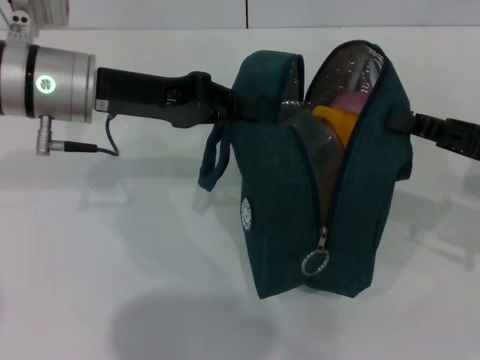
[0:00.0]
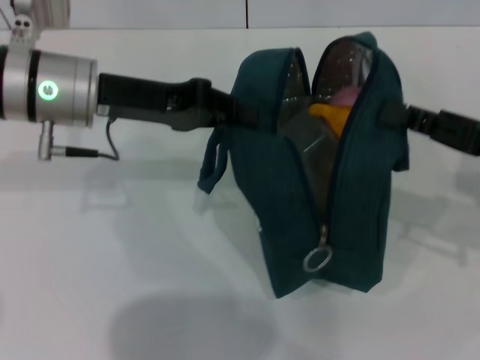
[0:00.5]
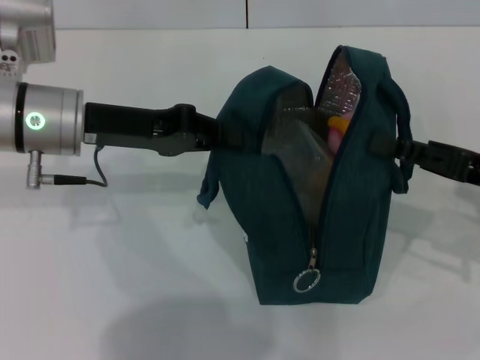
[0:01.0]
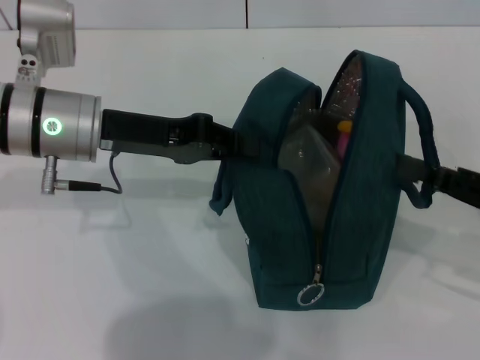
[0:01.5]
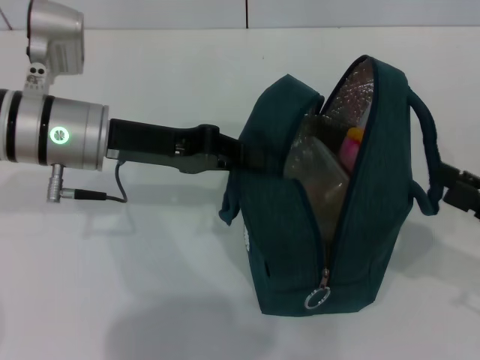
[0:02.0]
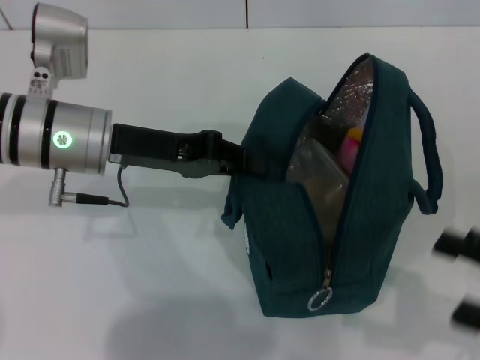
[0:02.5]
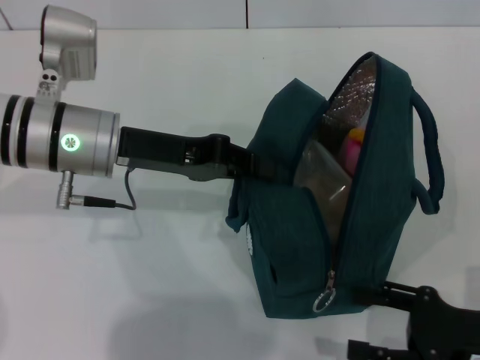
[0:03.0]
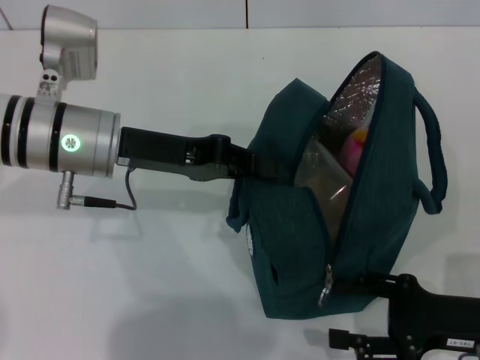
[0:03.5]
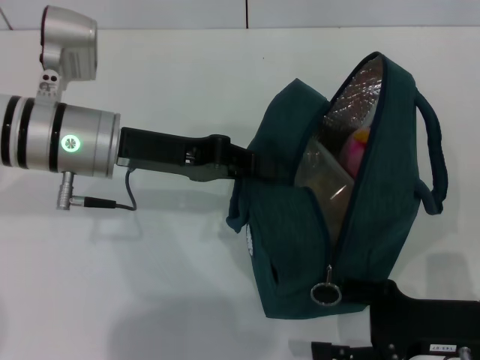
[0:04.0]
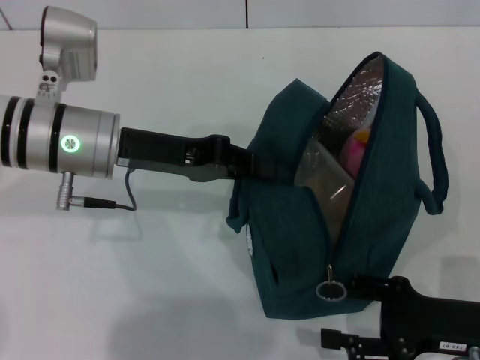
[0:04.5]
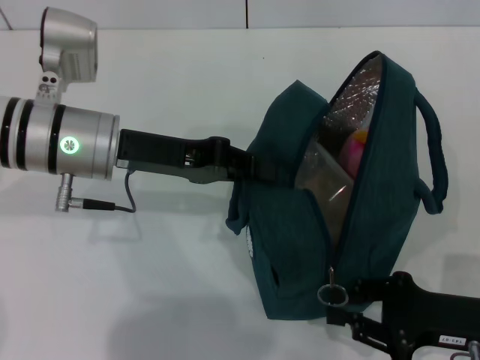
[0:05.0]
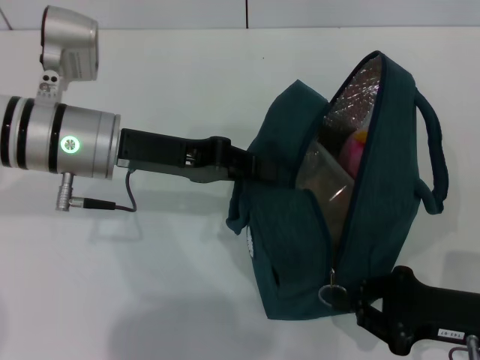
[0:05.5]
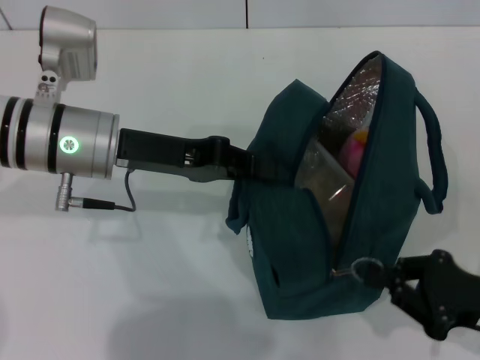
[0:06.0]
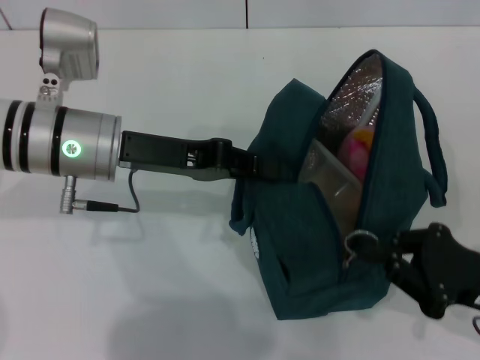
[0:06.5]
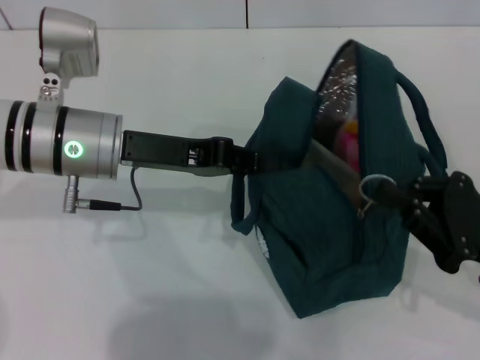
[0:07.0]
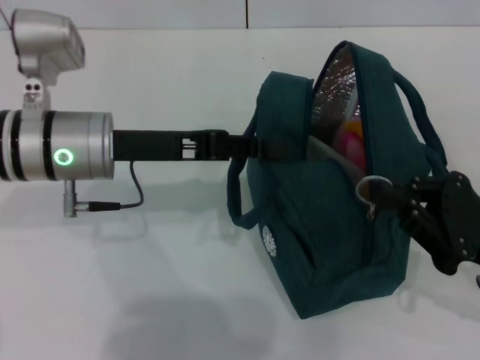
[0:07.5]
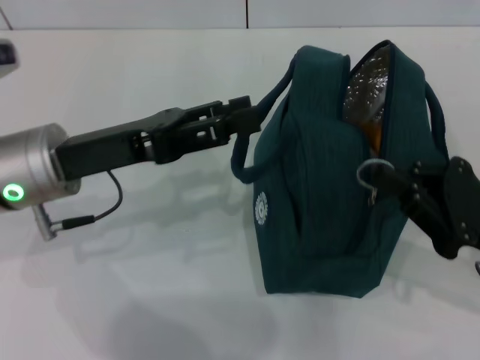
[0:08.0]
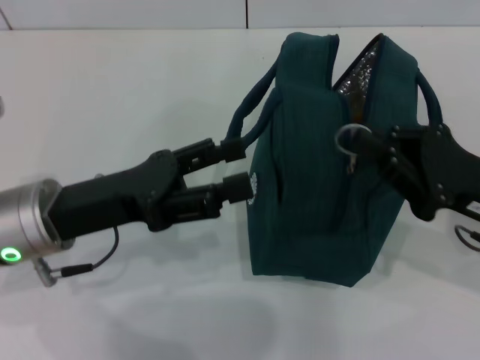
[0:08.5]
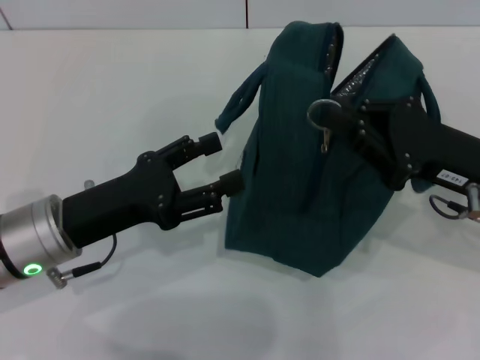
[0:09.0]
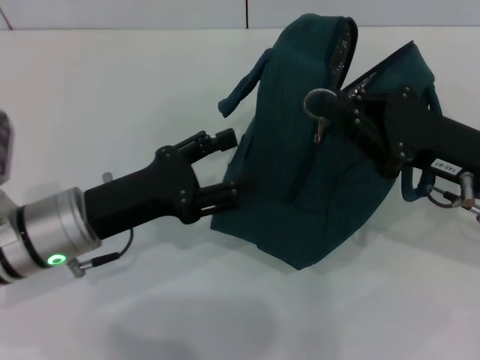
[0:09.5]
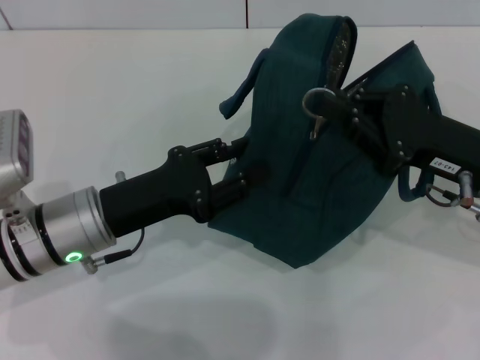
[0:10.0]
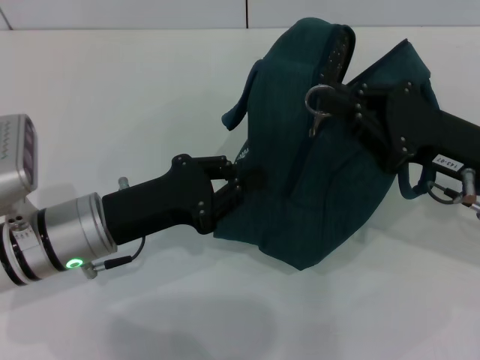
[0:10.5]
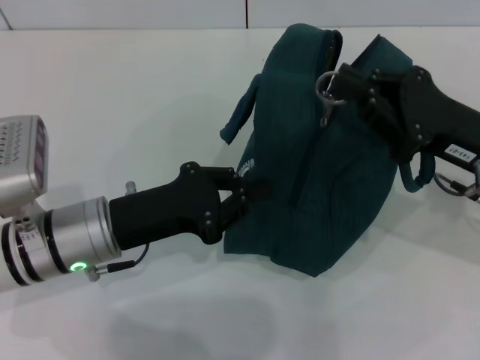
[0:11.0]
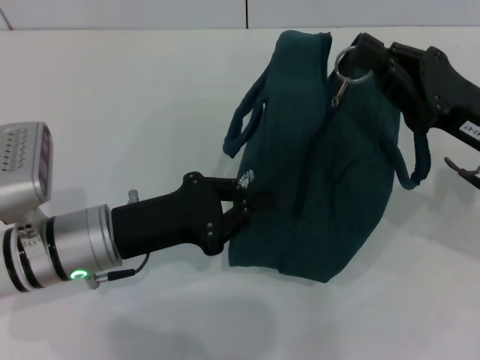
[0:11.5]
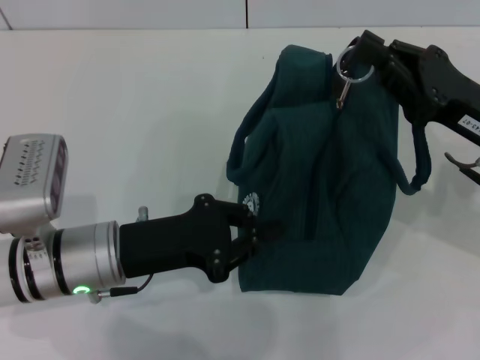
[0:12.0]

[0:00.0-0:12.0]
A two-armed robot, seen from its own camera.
Step, 0:00.0 to 0:02.0: Hold the lunch bag with your right hand.
0:00.0 to 0:02.0: The right gripper is displaced backward by roughly 5 cm, and opens its fingers.
0:02.0 to 0:04.0: The right gripper moves to the left and downward, some 10 cm.
0:04.0 to 0:06.0: The right gripper closes its fingers.
0:06.0 to 0:08.0: The left gripper ends up some 5 cm from where it was, and opens; the right gripper ends up approximately 5 cm from where it was.
0:08.0 to 0:10.0: The right gripper travels forward by about 5 cm; the left gripper goes approximately 5 cm downward.
0:10.0 to 0:12.0: The left gripper closes.

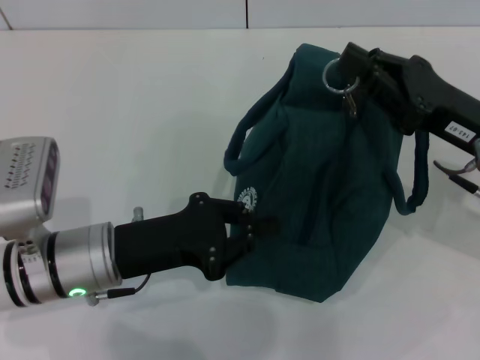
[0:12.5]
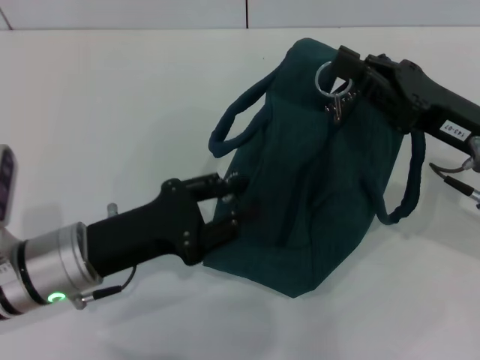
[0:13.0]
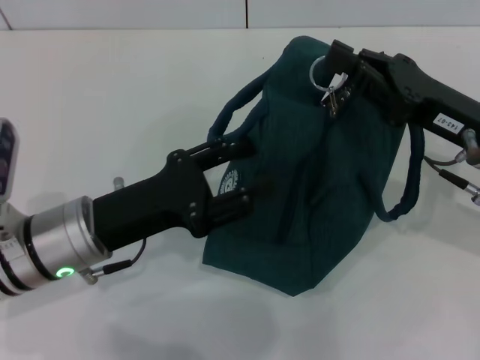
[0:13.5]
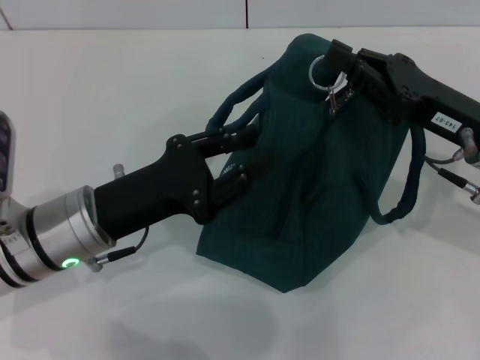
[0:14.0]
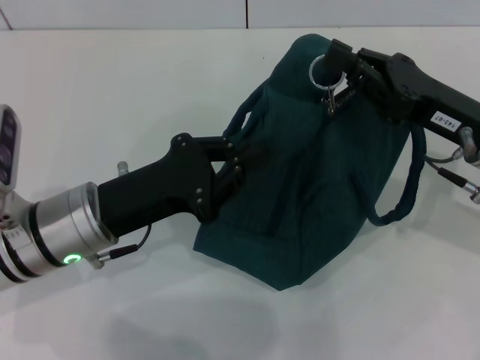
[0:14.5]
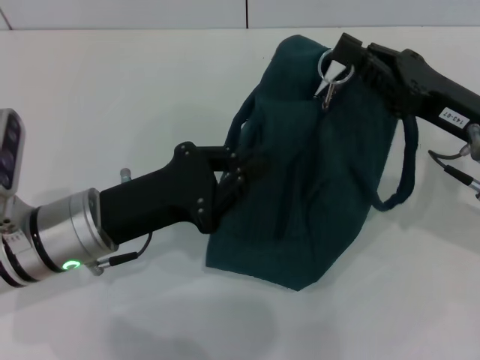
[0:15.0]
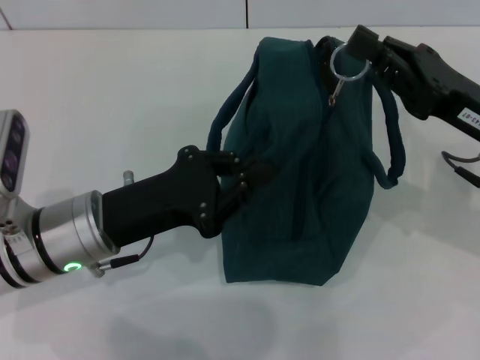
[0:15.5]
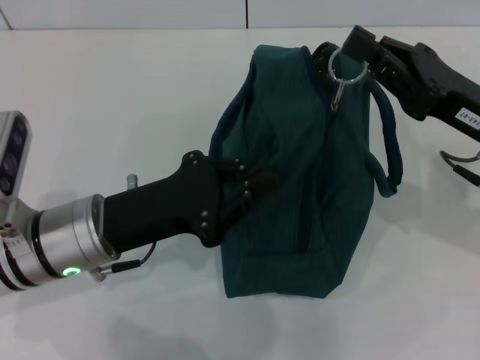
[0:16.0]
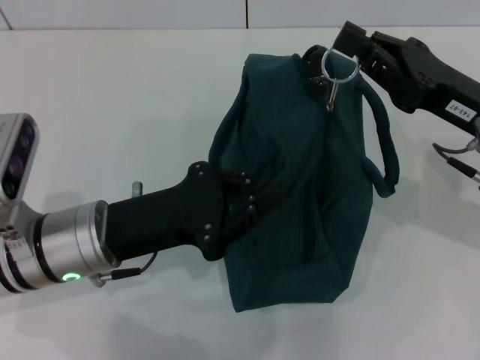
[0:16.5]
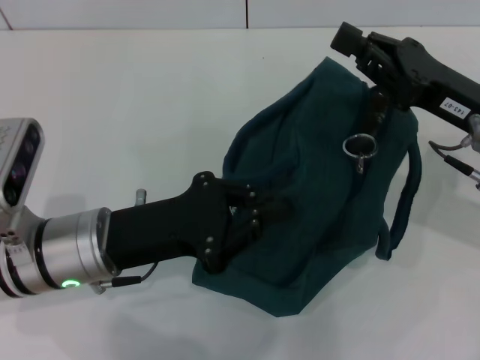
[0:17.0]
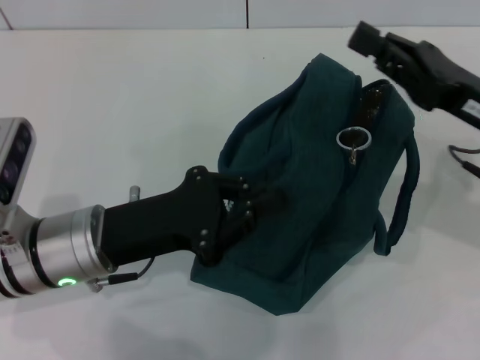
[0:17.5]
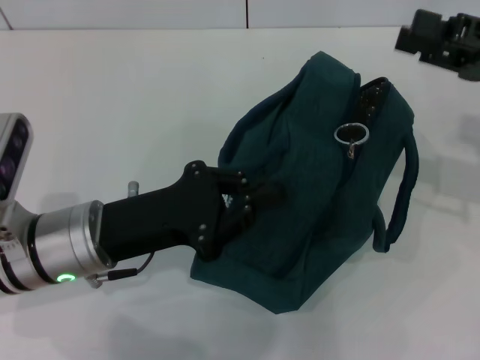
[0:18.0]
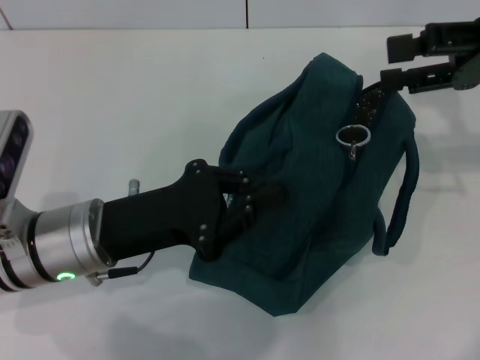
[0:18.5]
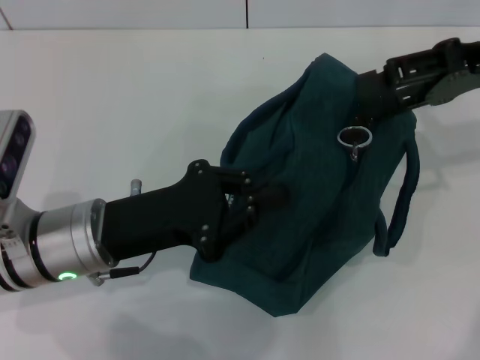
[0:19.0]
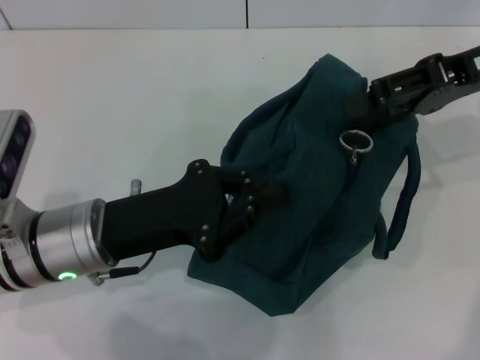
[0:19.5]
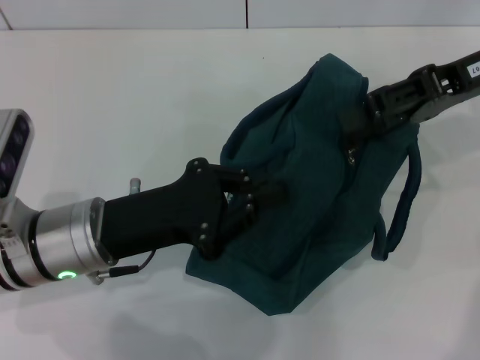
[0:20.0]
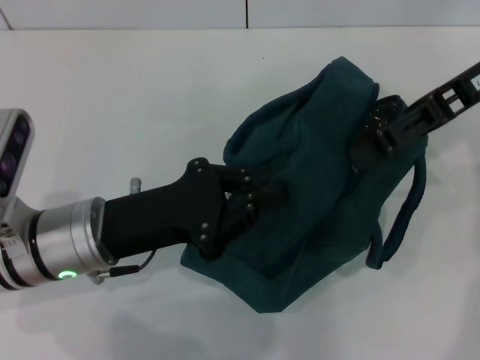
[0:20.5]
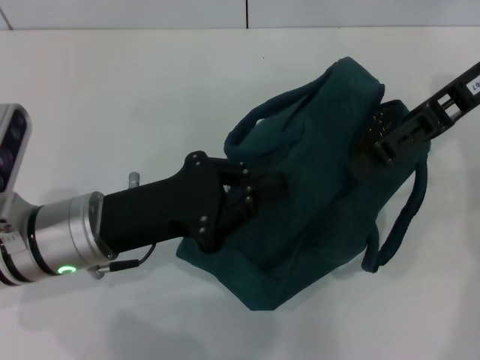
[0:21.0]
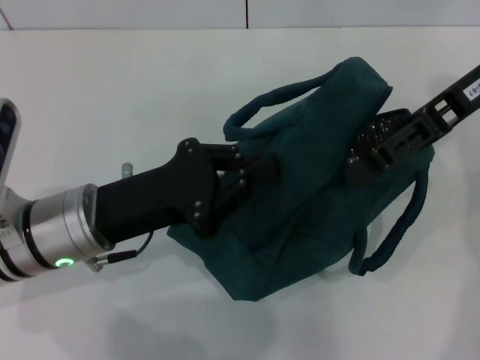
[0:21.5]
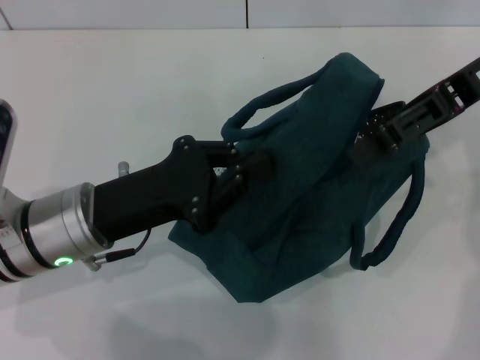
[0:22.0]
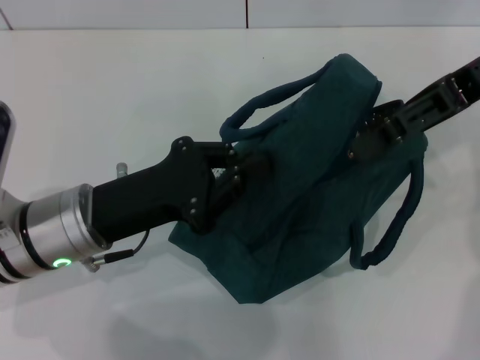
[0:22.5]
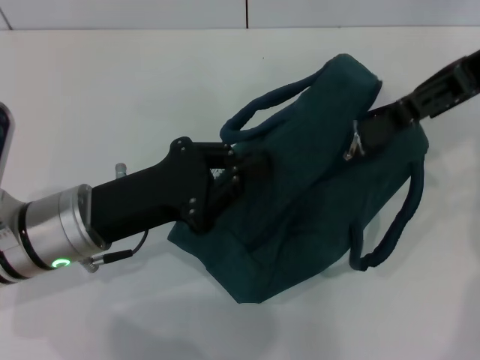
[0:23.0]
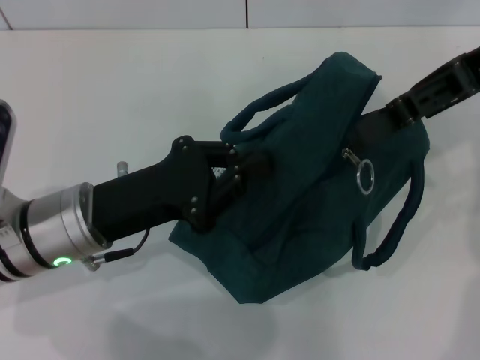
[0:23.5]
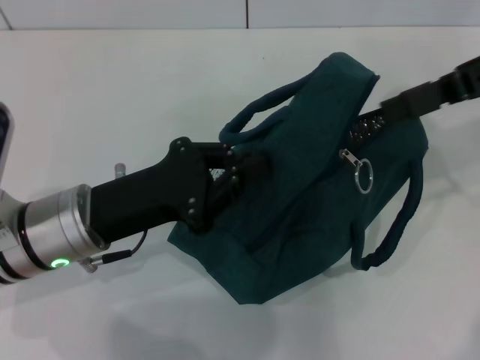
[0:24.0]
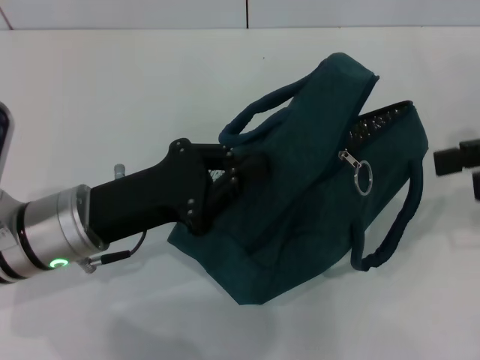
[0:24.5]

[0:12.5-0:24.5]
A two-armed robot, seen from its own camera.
0:12.5 to 0:14.5: The left gripper opens, then closes once more.
0:16.5 to 0:18.5: The right gripper shifts roughly 10 cm upward, to the right and forward, and opens.
0:18.5 to 0:20.5: The right gripper heads to the left, covering roughly 5 cm.
0:20.5 to 0:22.5: The grippers stay close to where they were, moving slightly.
0:22.5 to 0:24.5: The right gripper travels to the right and backward by roughly 10 cm.

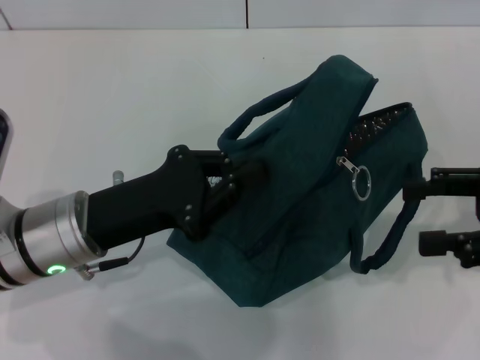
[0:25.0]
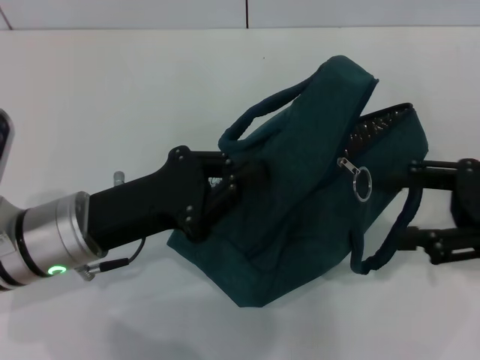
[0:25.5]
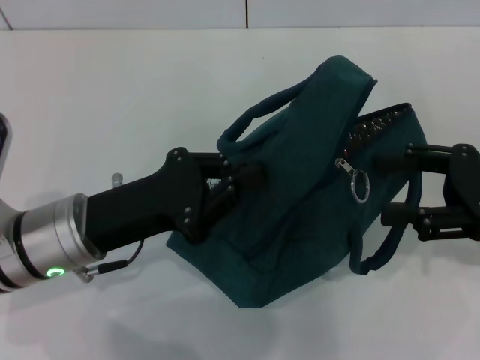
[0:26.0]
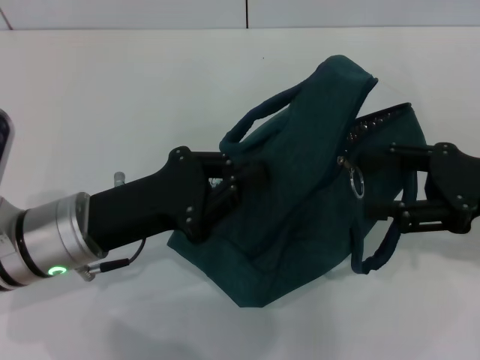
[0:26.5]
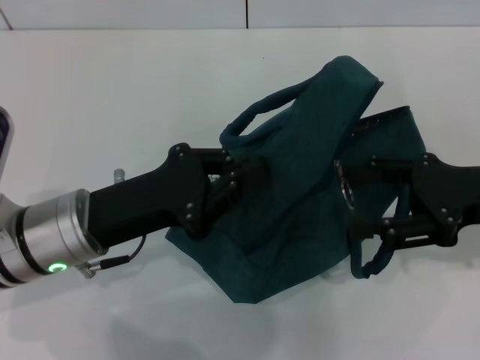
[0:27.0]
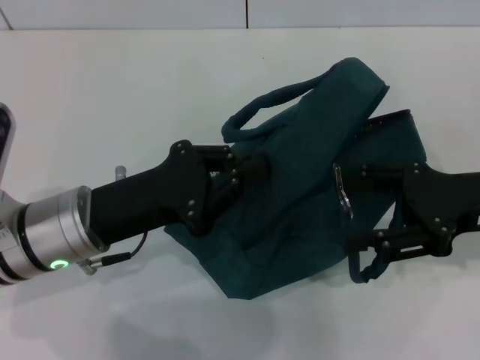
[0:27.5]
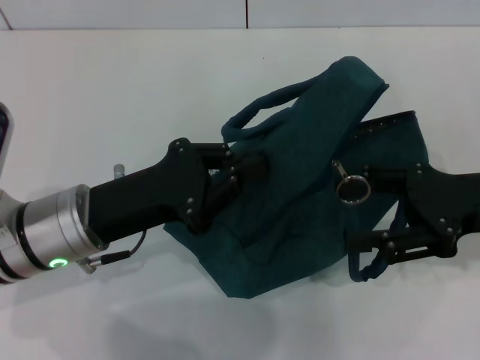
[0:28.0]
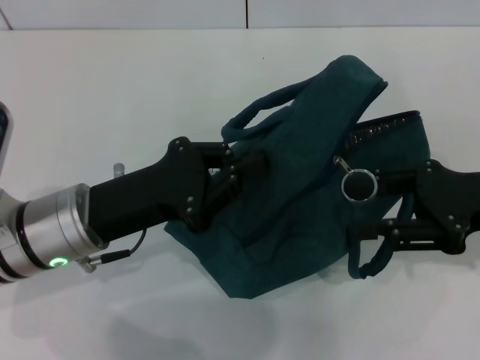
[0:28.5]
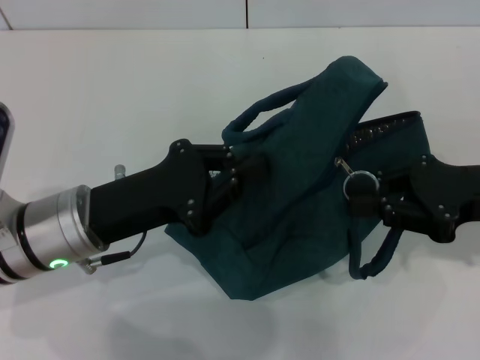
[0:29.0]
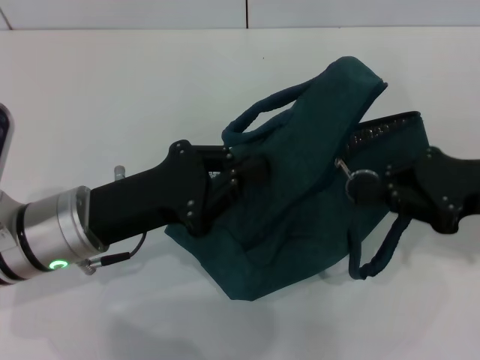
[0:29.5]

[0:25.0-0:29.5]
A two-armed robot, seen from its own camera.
0:25.0 to 0:27.0: The right gripper changes place by about 5 cm.
0:27.0 to 0:29.5: The right gripper closes its fingers.
